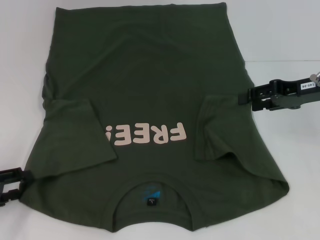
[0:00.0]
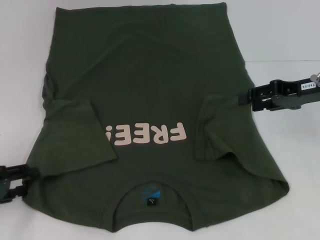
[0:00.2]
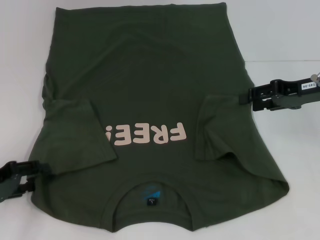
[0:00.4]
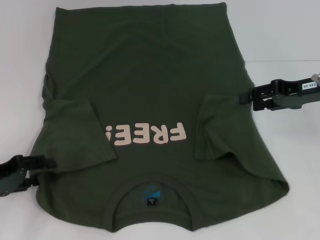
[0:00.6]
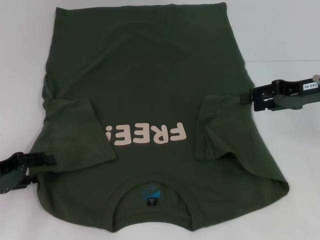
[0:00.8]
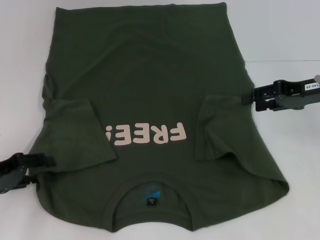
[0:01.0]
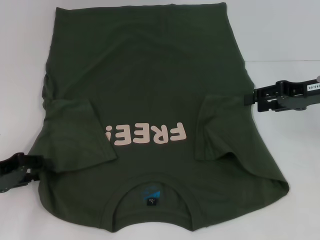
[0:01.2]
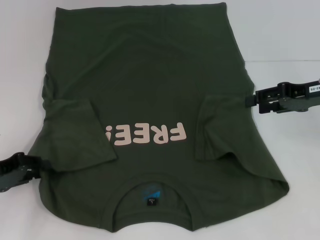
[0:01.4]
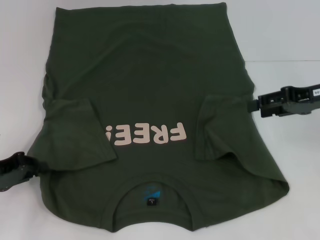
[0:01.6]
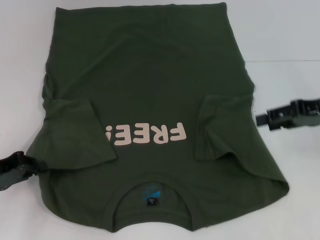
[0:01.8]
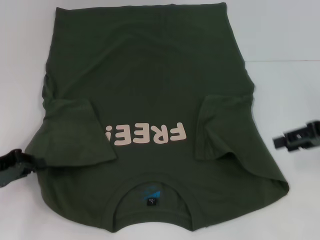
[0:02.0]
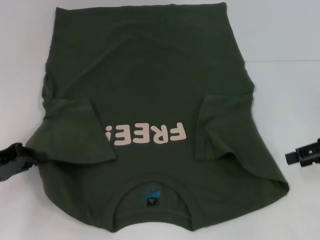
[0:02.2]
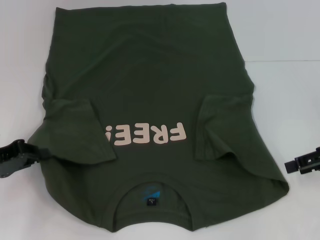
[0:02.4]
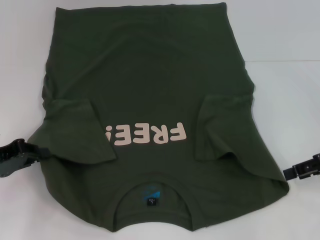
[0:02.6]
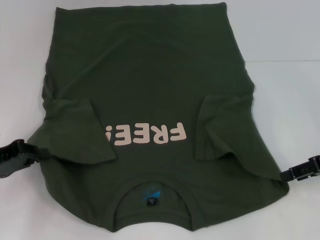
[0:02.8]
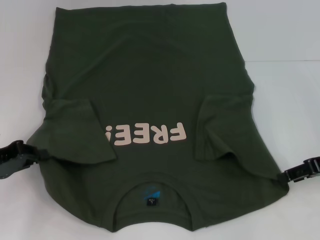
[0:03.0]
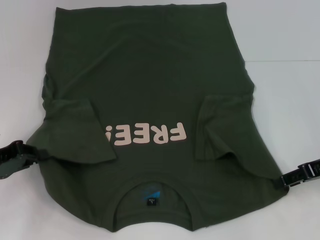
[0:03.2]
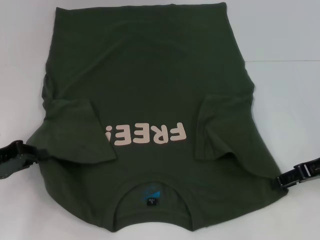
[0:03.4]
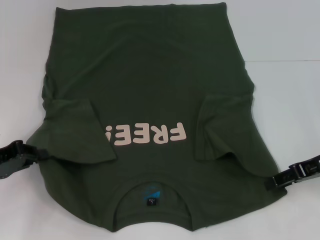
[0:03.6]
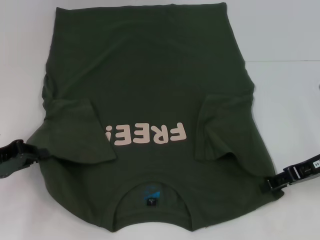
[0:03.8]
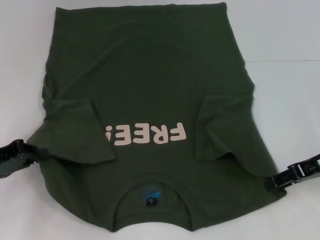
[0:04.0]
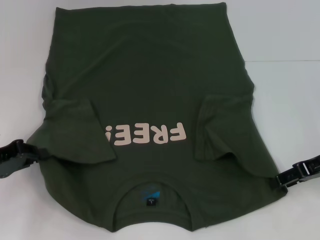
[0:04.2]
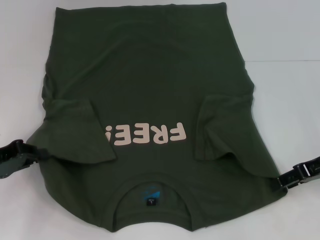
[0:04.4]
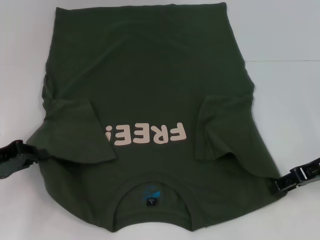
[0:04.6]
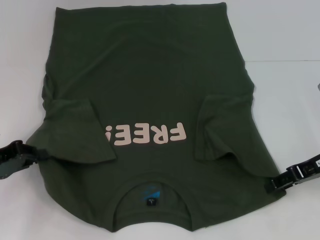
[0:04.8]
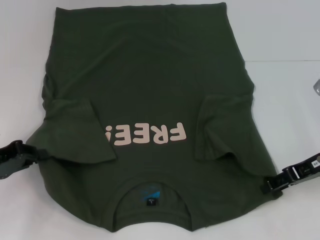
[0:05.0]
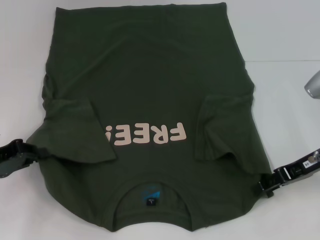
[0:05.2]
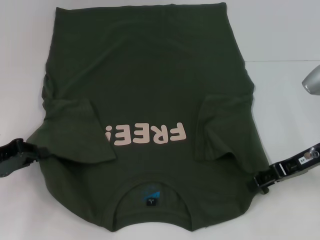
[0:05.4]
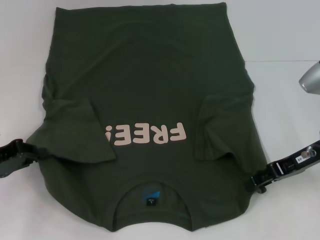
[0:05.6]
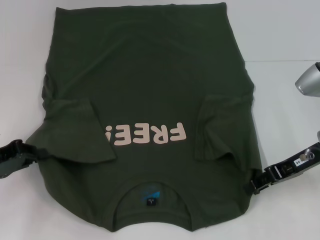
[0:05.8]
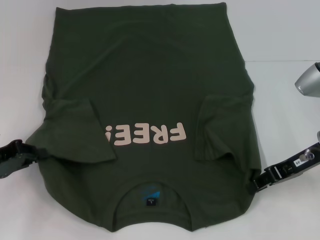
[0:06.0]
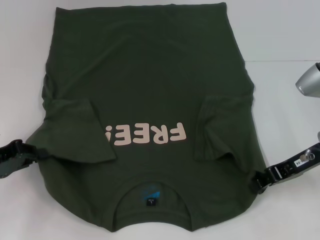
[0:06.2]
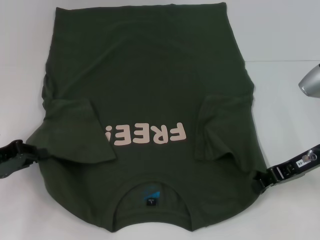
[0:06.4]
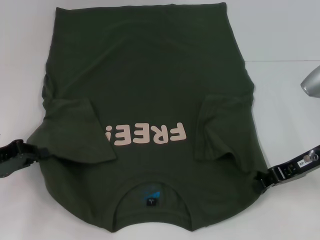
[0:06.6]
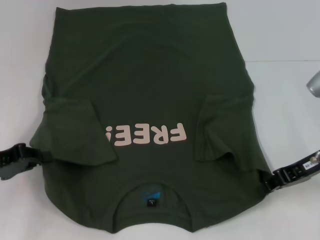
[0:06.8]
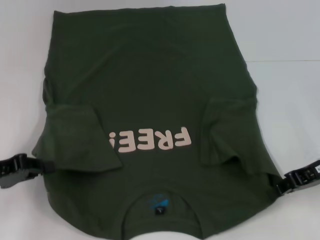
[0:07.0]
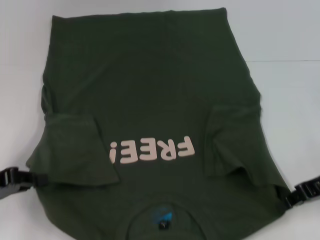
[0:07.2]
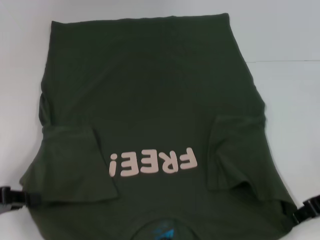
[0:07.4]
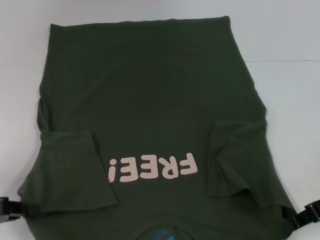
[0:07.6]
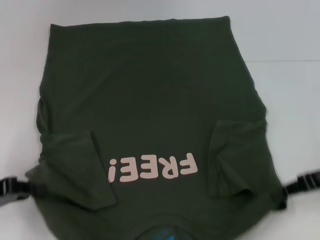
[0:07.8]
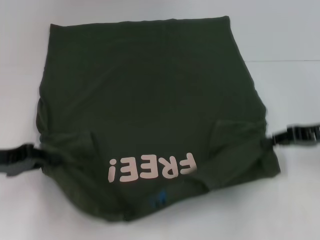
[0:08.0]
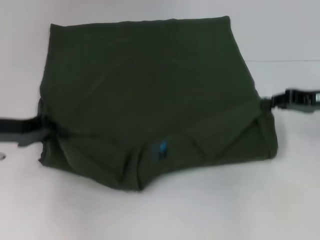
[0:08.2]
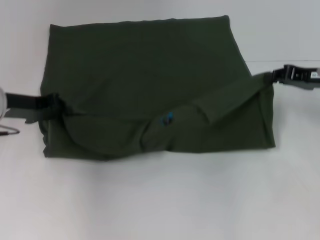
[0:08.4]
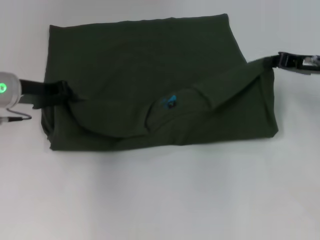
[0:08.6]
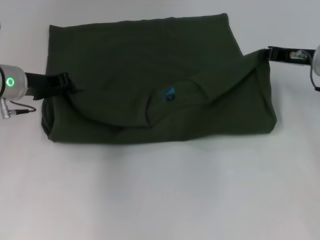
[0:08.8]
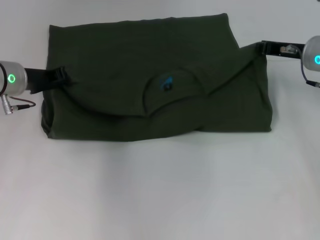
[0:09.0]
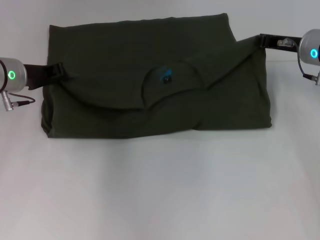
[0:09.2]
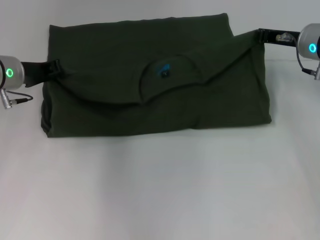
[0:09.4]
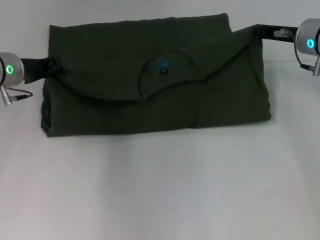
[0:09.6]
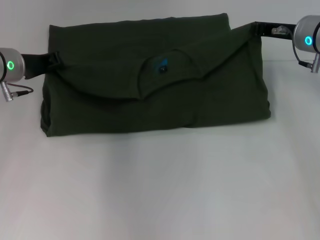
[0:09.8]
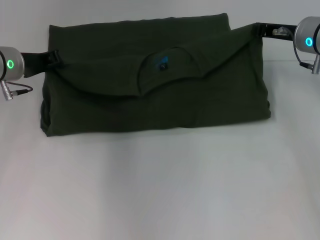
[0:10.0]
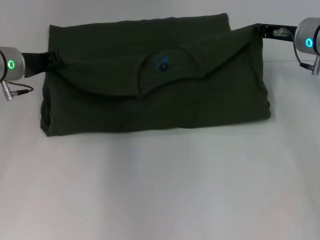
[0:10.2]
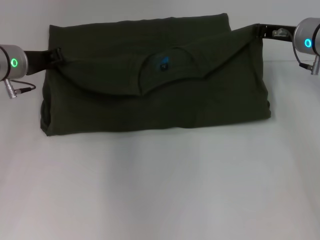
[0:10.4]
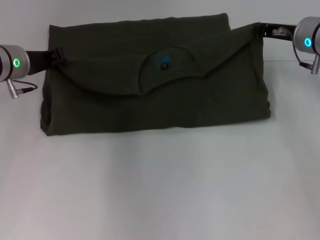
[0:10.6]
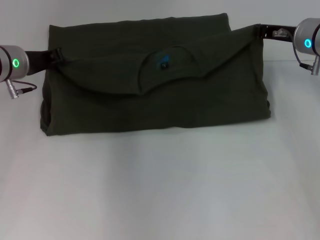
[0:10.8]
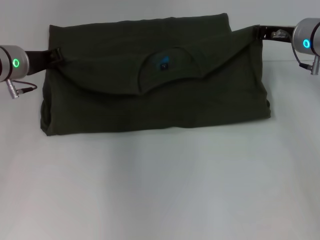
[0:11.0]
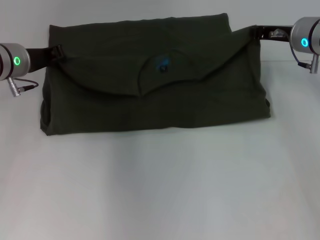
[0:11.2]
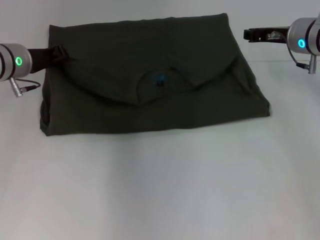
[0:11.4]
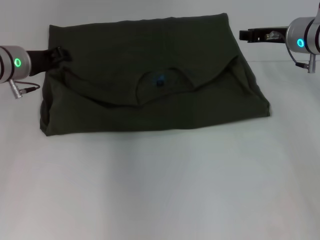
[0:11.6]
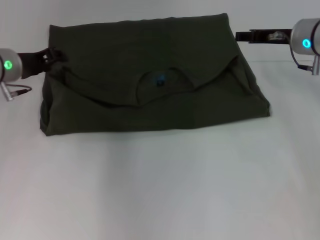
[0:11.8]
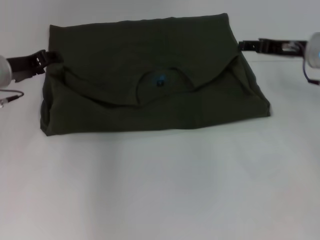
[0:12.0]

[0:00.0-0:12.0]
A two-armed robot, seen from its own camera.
Step, 0:00.0 to 0:02.6: Grab the bottom left corner with your left hand.
Step, 0:02.8 to 0:05.8: Grab the bottom right corner with your right hand.
Step, 0:06.0 to 0:11.4: Fold the clothes with your left hand.
Step, 0:06.0 to 0:11.4: Fold the clothes with your right hand.
0:00.0 to 0:01.6: The left gripper closes.
0:01.6 to 0:03.0: The right gripper ends up about 5 cm from where it was.
0:04.4 to 0:06.0: The grippers make only small movements.
0:06.0 to 0:07.6: Both grippers travel together backward, approximately 5 cm. The right gripper closes its fingers.
0:07.6 to 0:09.0: The right gripper is displaced forward by about 15 cm. Meanwhile the left gripper goes approximately 20 cm forward and to the right.
0:09.0 to 0:10.4: The grippers make only small movements.
0:10.4 to 0:12.0: The right gripper opens, while the left gripper opens its fingers.

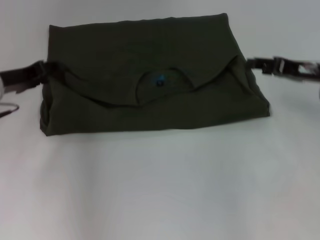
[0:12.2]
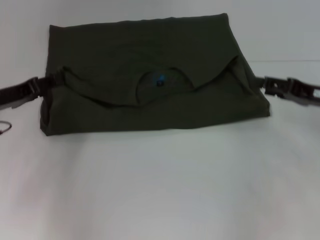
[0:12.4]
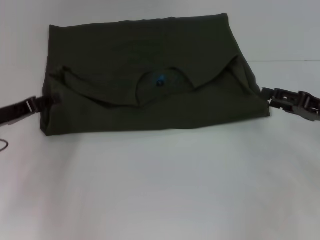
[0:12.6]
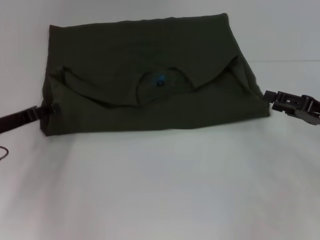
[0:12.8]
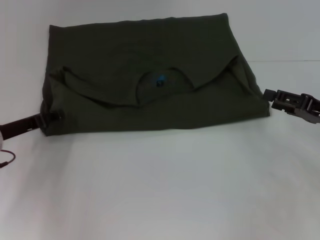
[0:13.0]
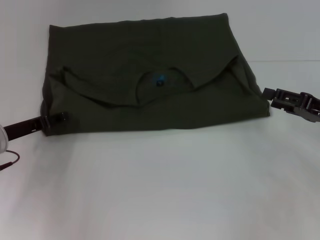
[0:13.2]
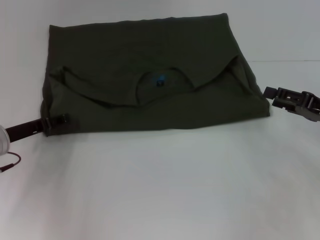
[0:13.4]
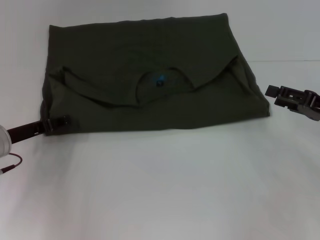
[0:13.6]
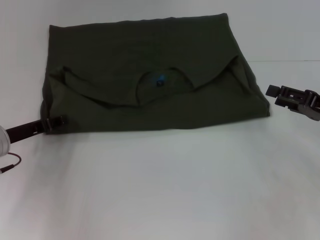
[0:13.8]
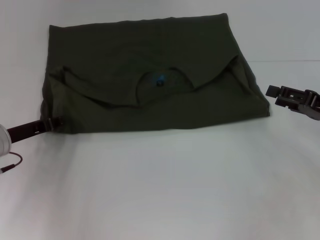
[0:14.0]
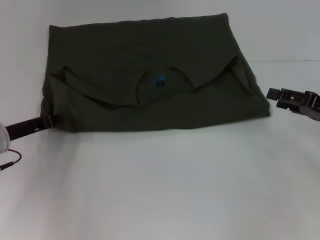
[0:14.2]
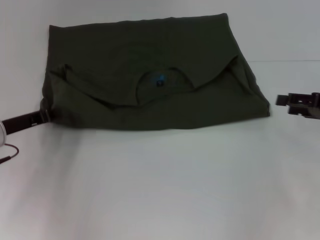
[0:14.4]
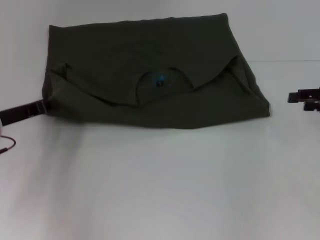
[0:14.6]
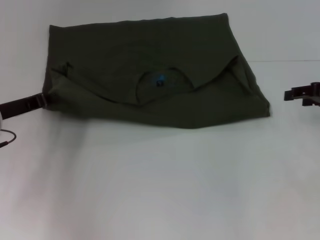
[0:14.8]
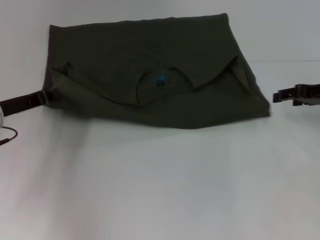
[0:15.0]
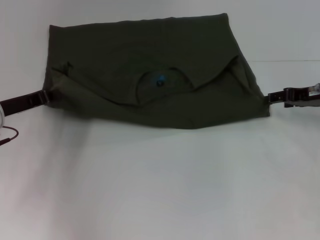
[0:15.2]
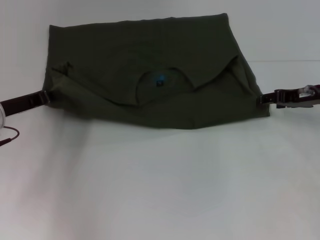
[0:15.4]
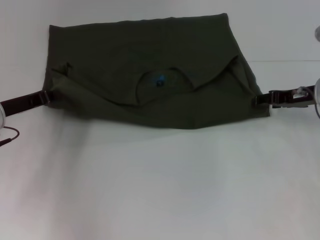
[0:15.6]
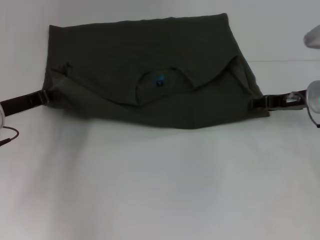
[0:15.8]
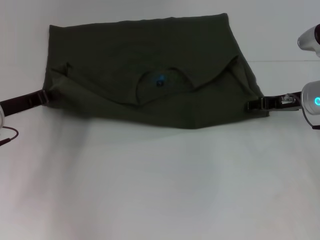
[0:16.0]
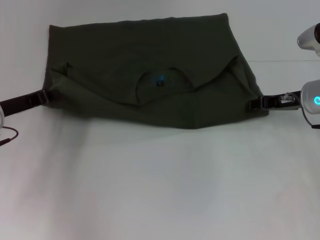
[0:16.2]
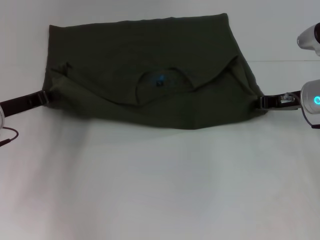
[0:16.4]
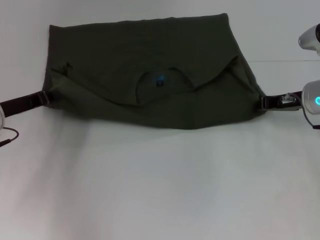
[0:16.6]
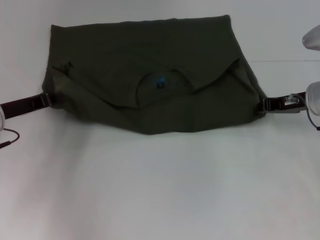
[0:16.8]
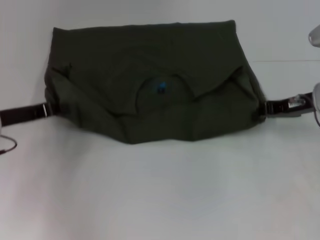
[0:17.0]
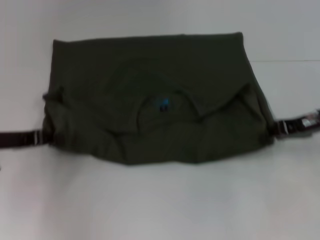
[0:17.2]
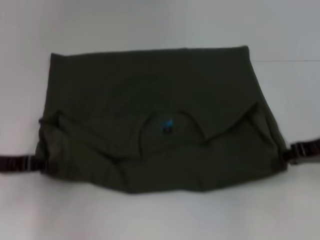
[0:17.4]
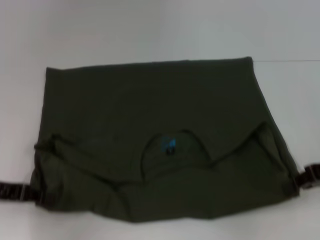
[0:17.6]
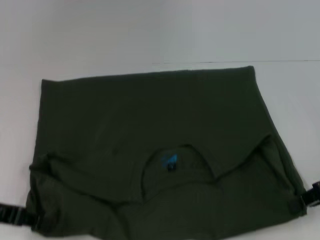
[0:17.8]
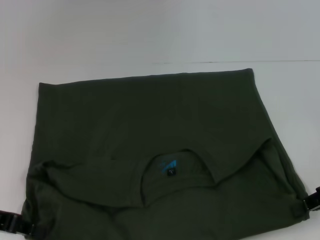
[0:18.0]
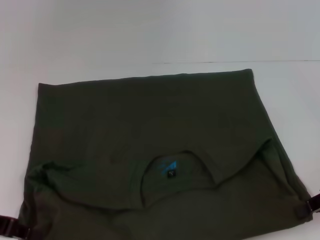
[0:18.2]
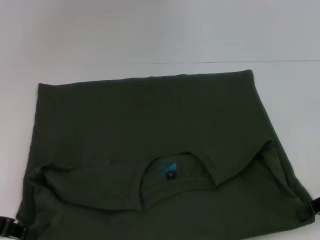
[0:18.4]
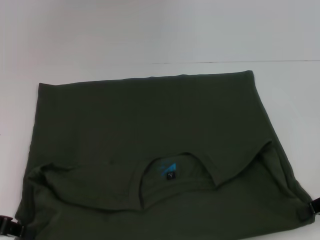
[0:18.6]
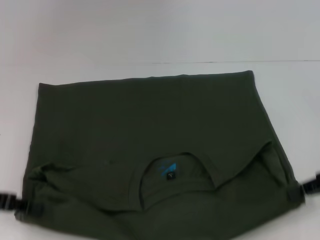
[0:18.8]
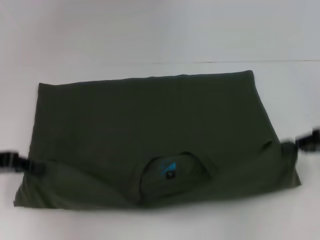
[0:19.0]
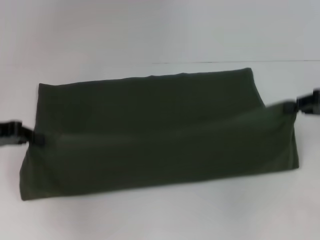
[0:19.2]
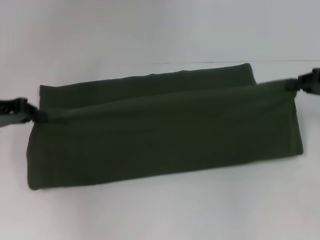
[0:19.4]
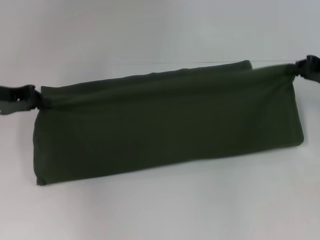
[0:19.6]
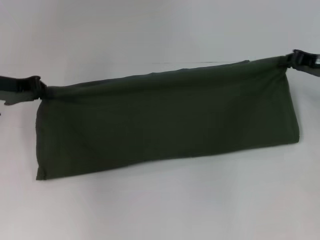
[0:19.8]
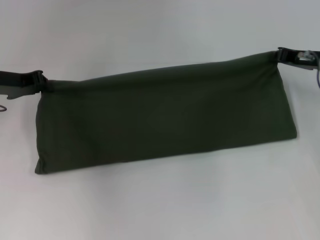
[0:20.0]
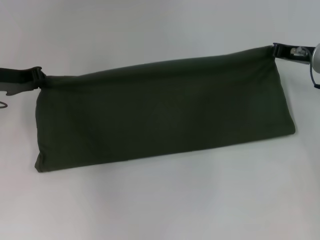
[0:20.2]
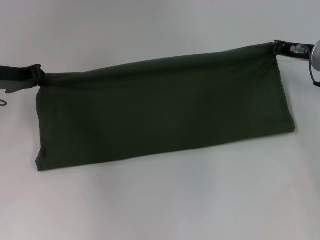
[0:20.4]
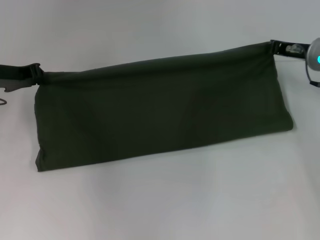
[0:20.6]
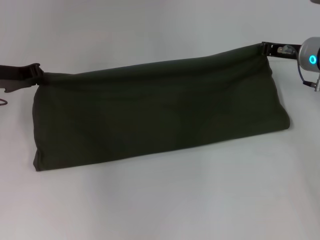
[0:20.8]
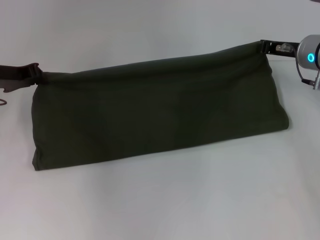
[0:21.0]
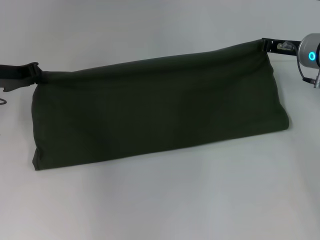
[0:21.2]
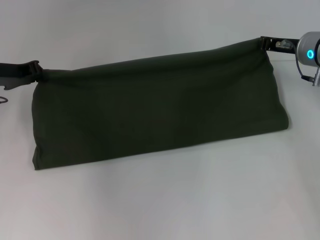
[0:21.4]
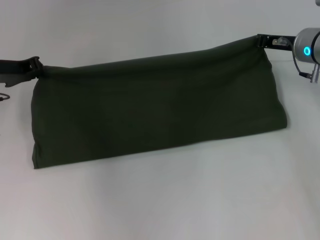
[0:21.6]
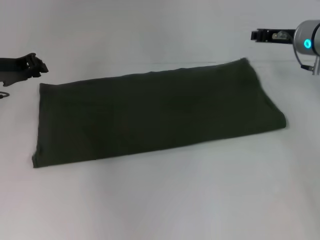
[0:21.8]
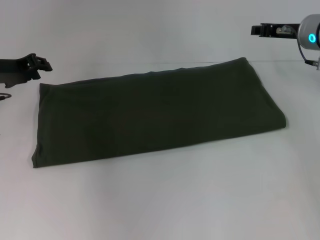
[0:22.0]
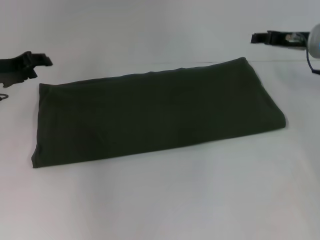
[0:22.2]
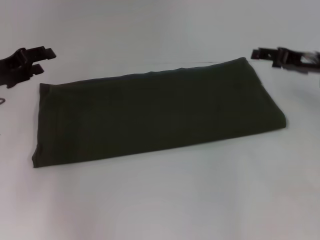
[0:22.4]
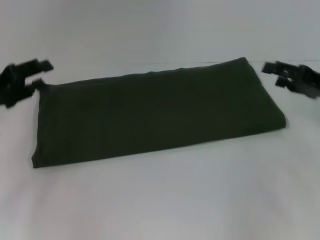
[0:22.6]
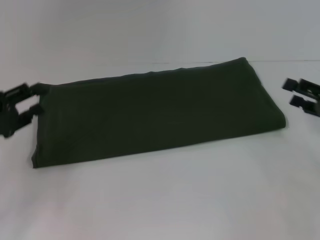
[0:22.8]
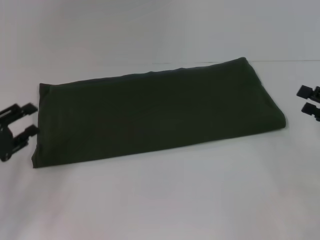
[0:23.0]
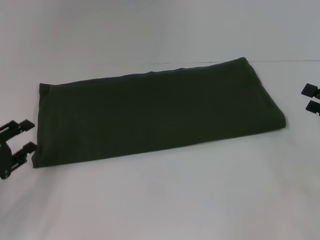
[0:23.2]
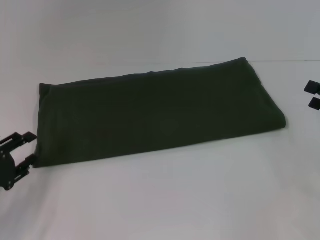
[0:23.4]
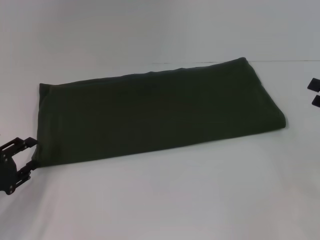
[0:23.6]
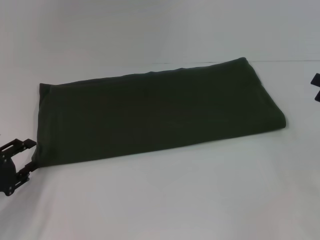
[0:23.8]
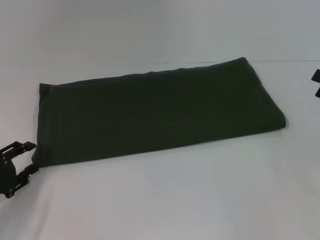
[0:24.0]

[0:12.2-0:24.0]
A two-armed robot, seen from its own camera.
Step, 0:12.2 to 0:18.2: Pull the clothes with your left hand.
Step, 0:12.2 to 0:18.2: Pull the clothes with your right hand.
Step, 0:18.4 to 0:22.2: Fold the clothes with your right hand.
0:12.2 to 0:13.6: The left gripper is displaced downward by roughly 5 cm; the right gripper moves backward, some 5 cm.
0:13.6 to 0:15.2: The right gripper is displaced forward by about 10 cm. Meanwhile the left gripper closes up.
0:15.2 to 0:16.6: The right gripper closes its fingers.
0:16.6 to 0:18.2: The left gripper heads backward, covering roughly 10 cm; the right gripper shifts approximately 15 cm backward and to the right.
0:18.2 to 0:19.6: The grippers both shift forward by roughly 10 cm.
0:19.6 to 0:21.0: The right gripper shifts roughly 10 cm to the left and forward.
0:21.0 to 0:22.6: The right gripper moves backward and to the right, approximately 15 cm, and opens up. The left gripper moves backward, about 10 cm, and opens up.
0:22.6 to 0:24.0: The right gripper shifts roughly 5 cm to the right, while the left gripper travels downward and backward by about 15 cm.
